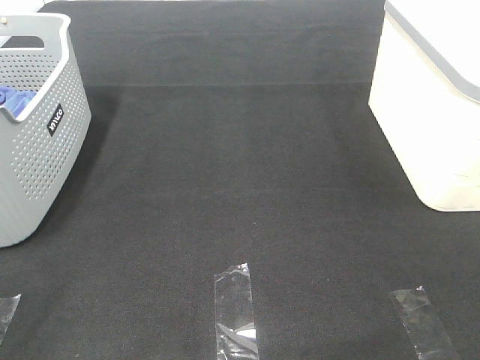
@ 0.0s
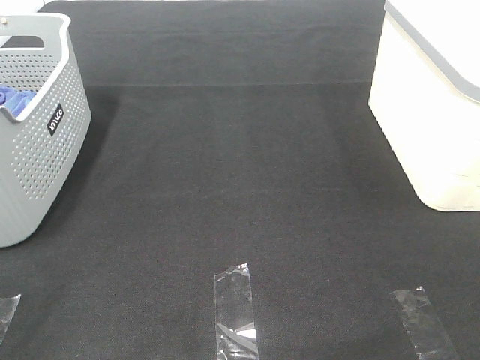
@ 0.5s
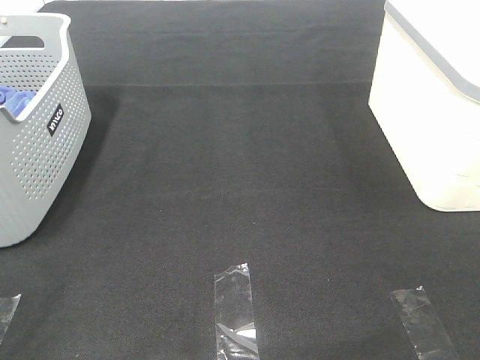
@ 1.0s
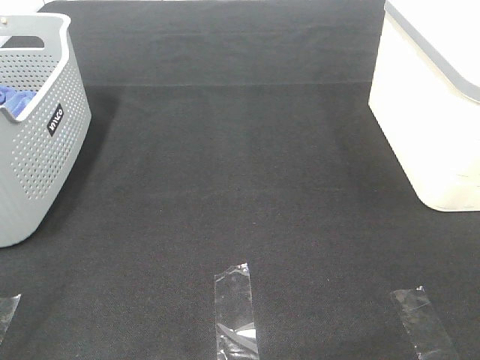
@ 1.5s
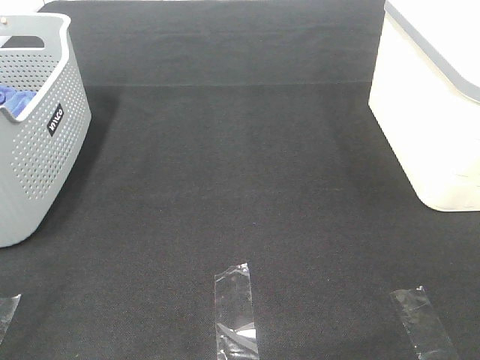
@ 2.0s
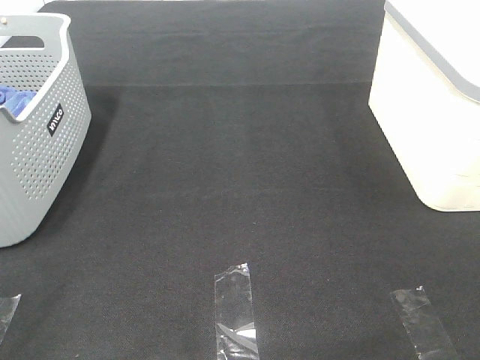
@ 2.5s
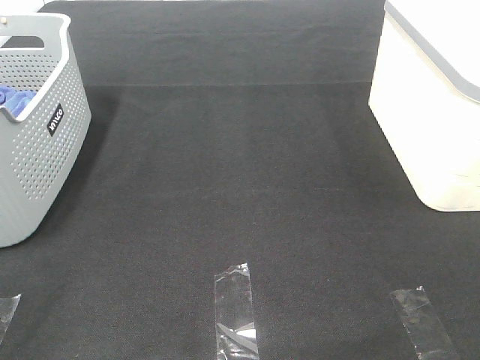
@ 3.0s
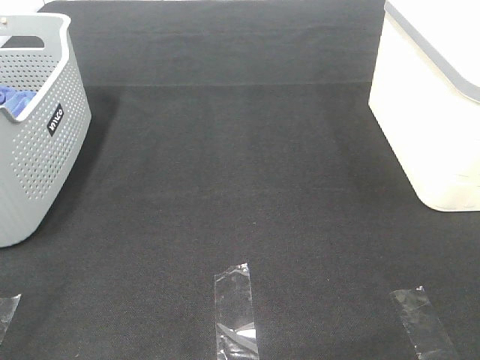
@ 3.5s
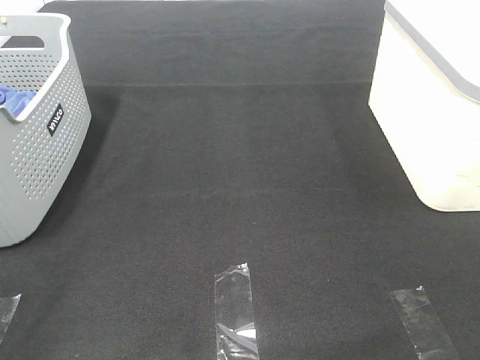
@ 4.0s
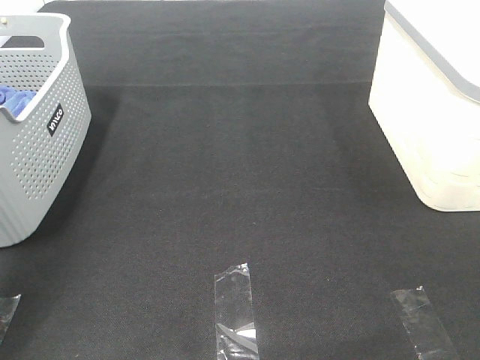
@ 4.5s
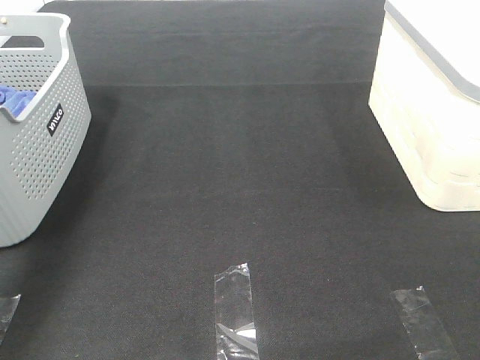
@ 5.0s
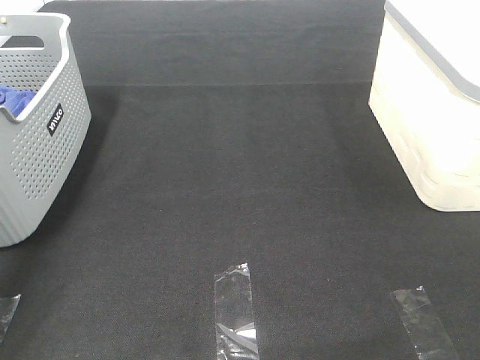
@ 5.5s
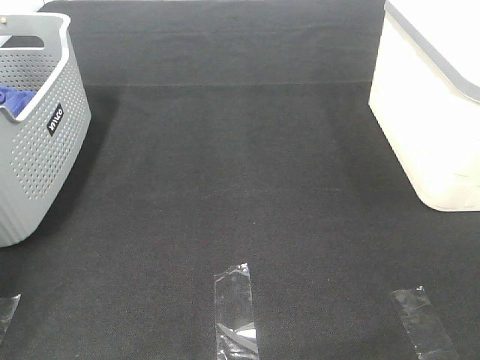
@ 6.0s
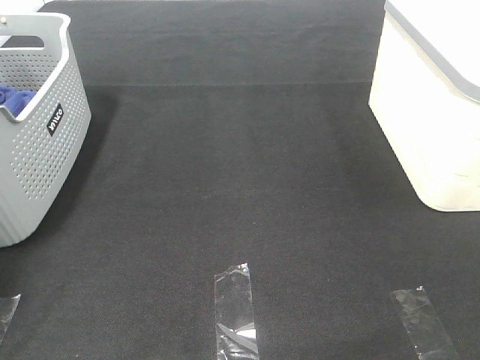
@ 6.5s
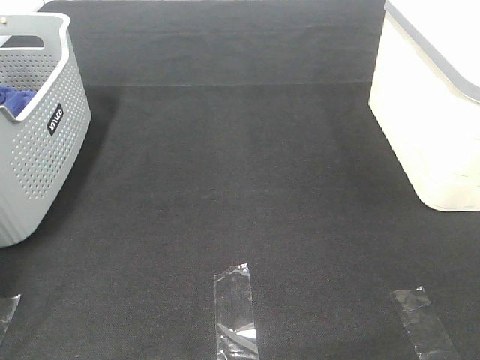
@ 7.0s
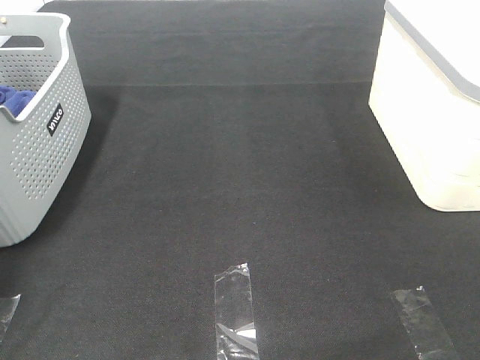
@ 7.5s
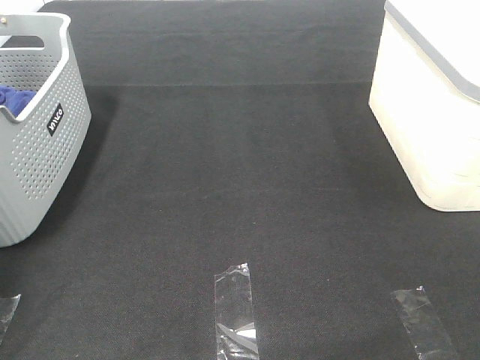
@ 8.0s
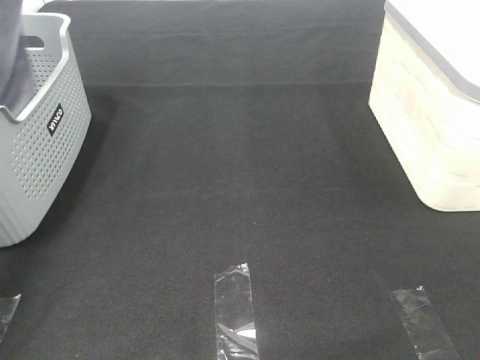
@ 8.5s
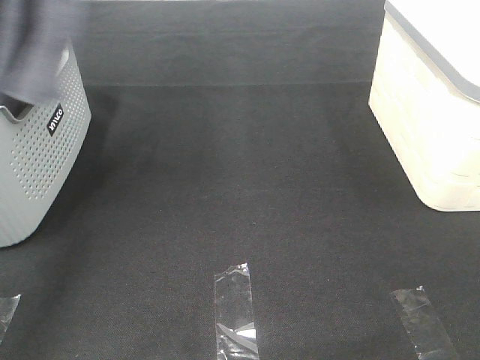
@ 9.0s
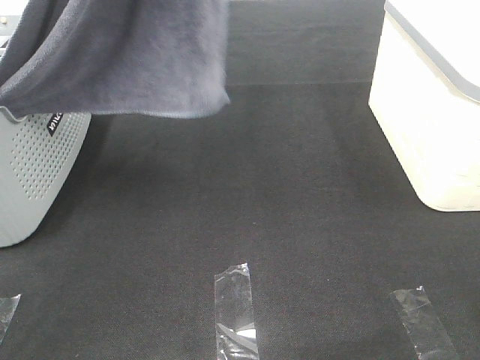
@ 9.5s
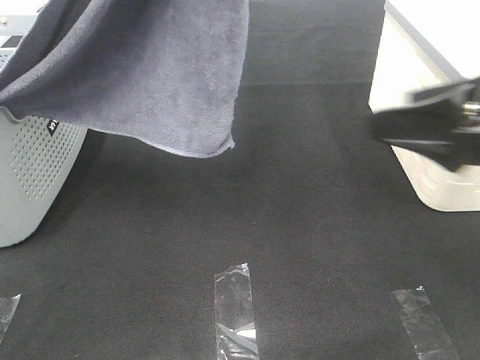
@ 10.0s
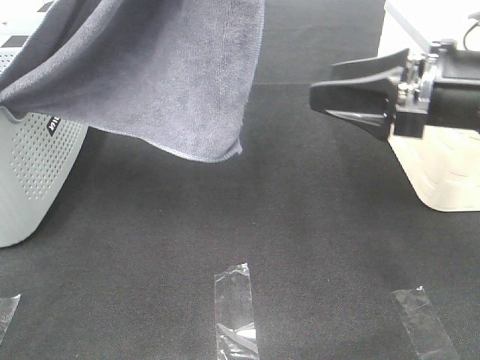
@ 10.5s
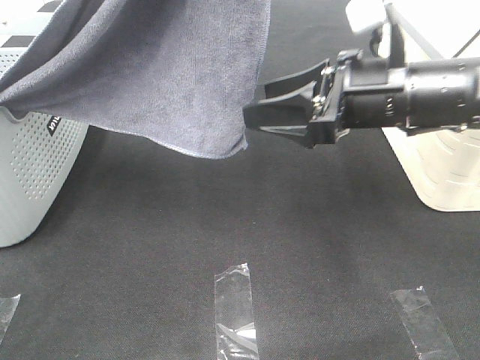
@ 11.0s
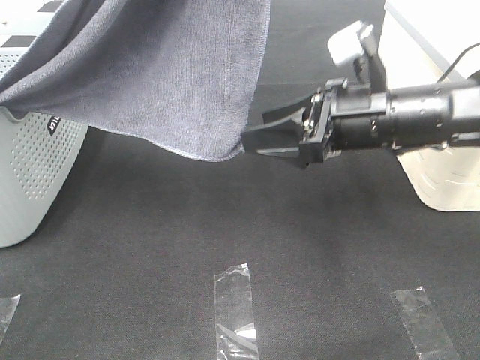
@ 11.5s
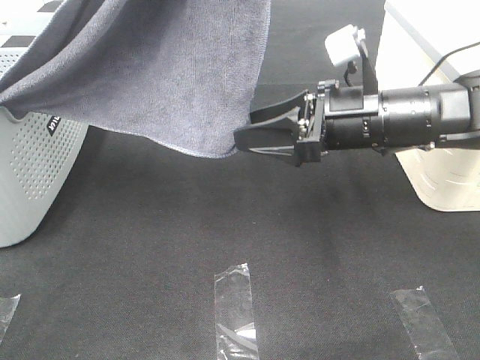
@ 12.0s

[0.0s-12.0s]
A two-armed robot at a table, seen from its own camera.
Task of the whole recording: Remove the towel and place it.
0.0s to 2.0s: Neither gripper changes place.
4.0s to 6.0s: The left gripper travels forward by approximately 40 cm.
8.0s to 10.0s: The right gripper heads forward, covering approximately 20 cm. Meanwhile the left gripper shifts some 40 cm to the right, upward and backward.
10.0s to 12.0s: The right gripper shifts roughly 15 cm forward, downward and to the left.

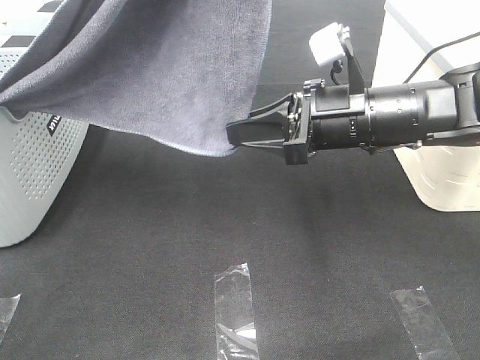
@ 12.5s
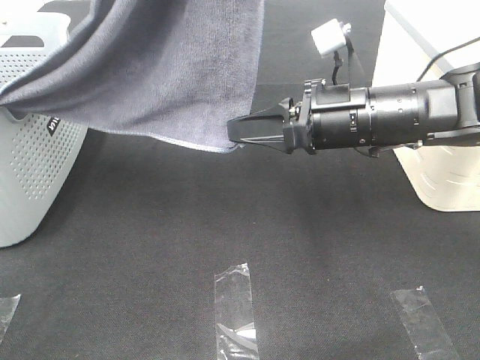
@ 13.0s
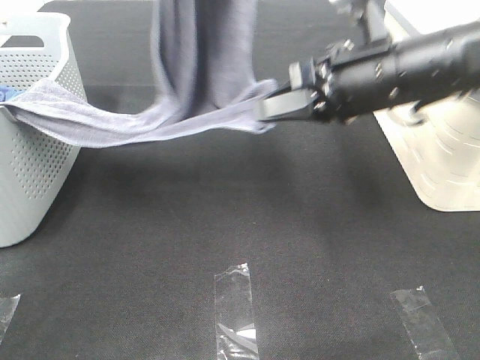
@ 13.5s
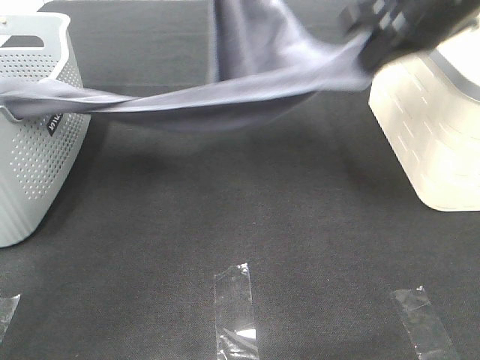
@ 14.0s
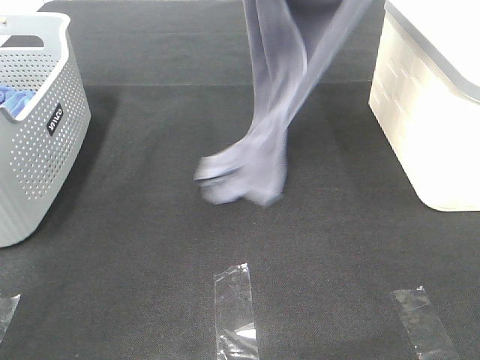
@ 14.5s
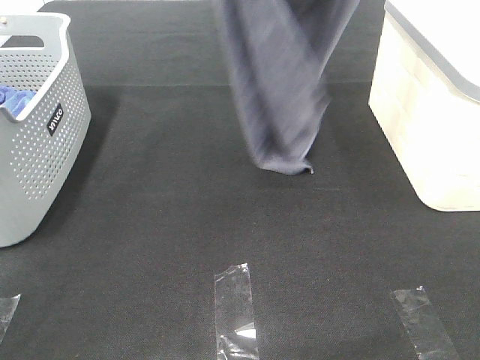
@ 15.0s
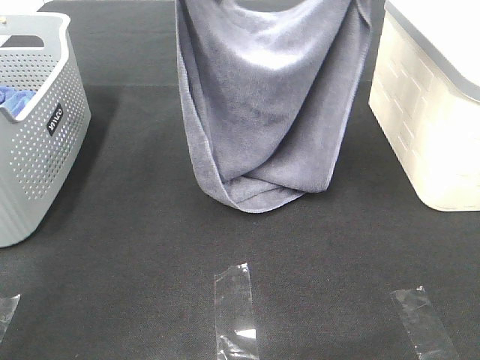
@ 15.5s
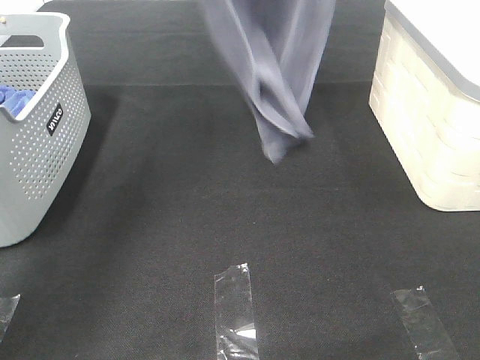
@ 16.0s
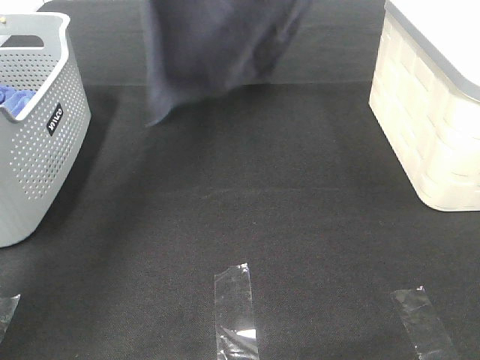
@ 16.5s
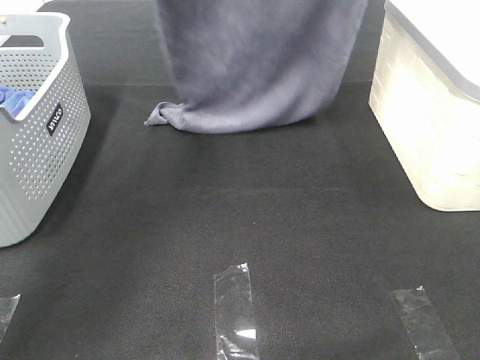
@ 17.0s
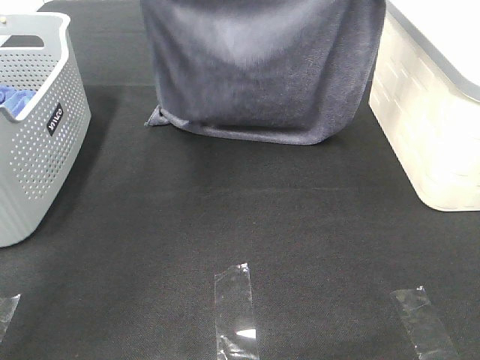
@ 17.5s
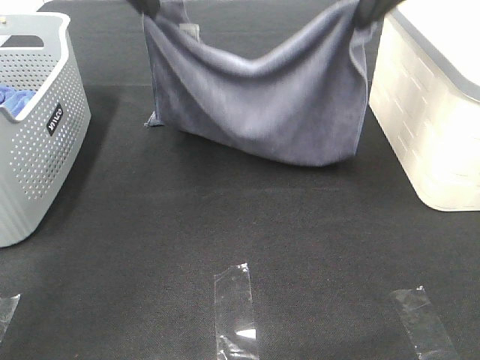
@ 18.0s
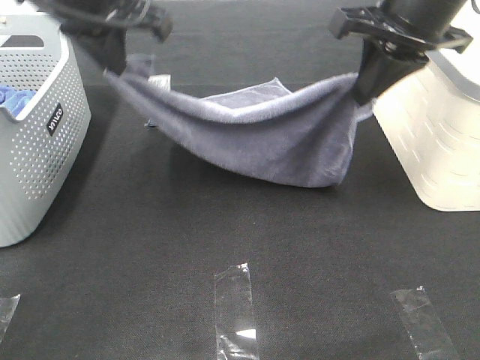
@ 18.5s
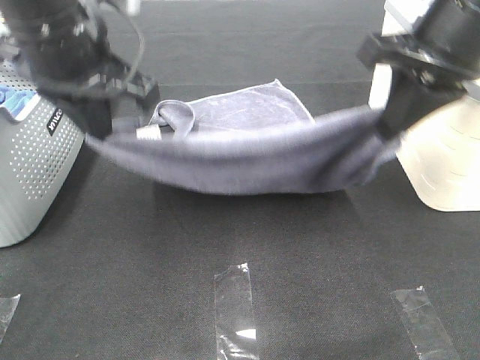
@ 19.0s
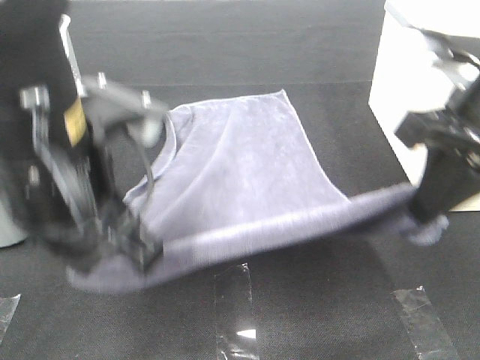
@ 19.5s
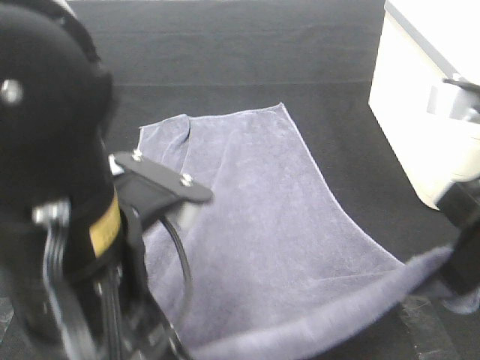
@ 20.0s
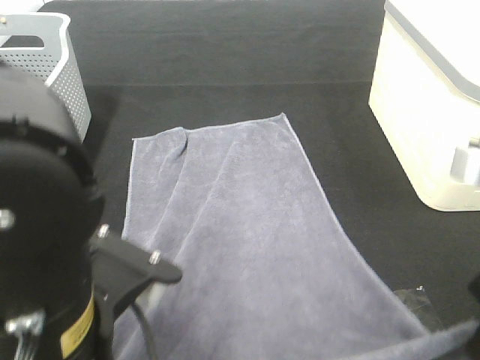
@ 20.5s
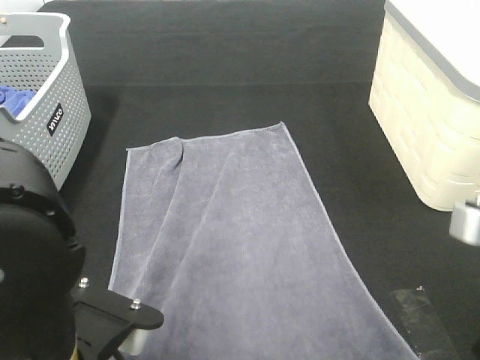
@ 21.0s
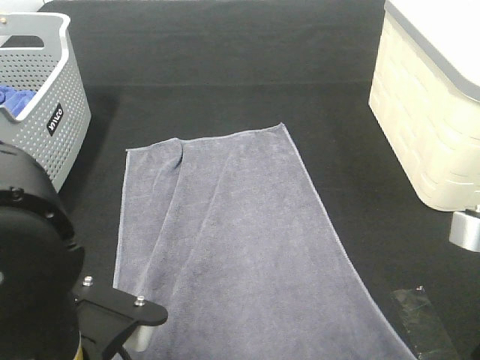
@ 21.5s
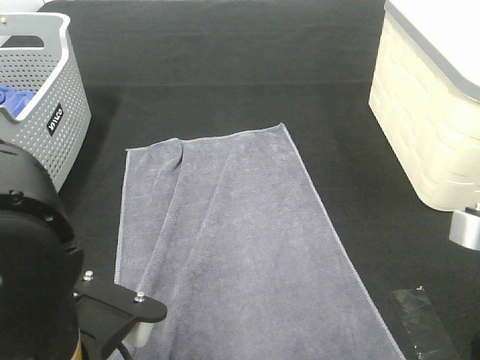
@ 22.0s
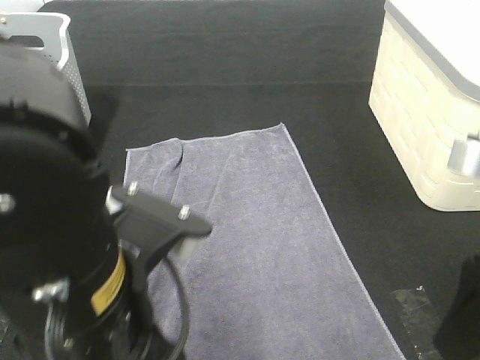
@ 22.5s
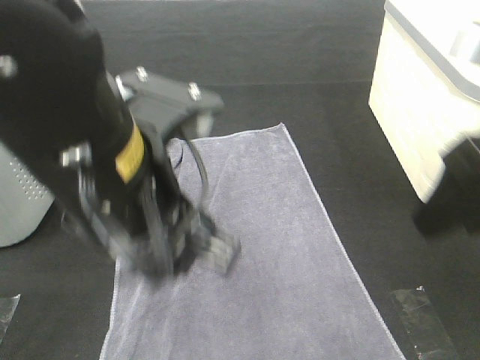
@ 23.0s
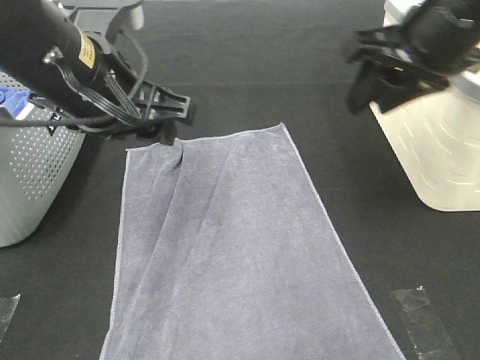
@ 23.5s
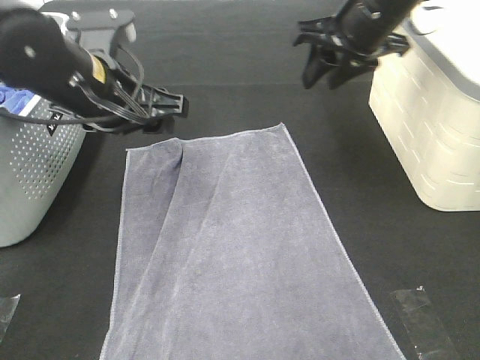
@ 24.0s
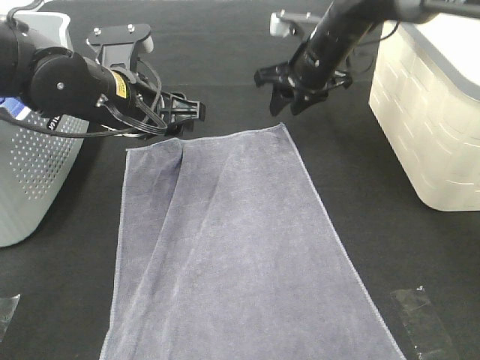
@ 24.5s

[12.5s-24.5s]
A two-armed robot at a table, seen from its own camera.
Task of the whole recording: Remove the towel and place it.
Step, 14.0s to 18.0s: Left hand: spread the grey towel flat on the table.
Step, 14.0s to 18.0s: Right hand: spread the grey towel flat on the table.
12.5s to 14.5s: The left gripper heads forward, covering roughly 10 cm, and travels downward and back again, some 15 cm each way. The right gripper is displaced upward by some 30 cm.
14.5s to 16.5s: The left gripper shifts approximately 10 cm forward and to the left, and travels downward and back again, roughly 10 cm each way. Meanwhile the right gripper travels forward by approximately 5 cm, and moves about 10 cm downward and comes back.
16.5s to 18.5s: The right gripper heads downward, covering some 20 cm. Meanwhile the left gripper goes some 20 cm downward and backward.
18.5s to 20.5s: The left gripper travels backward and downward by some 30 cm. The right gripper is displaced backward by roughly 20 cm.
20.5s to 22.5s: The left gripper opens. The right gripper opens its fingers.
22.5s to 24.5s: The left gripper goes about 25 cm forward. Meanwhile the right gripper goes about 35 cm forward.

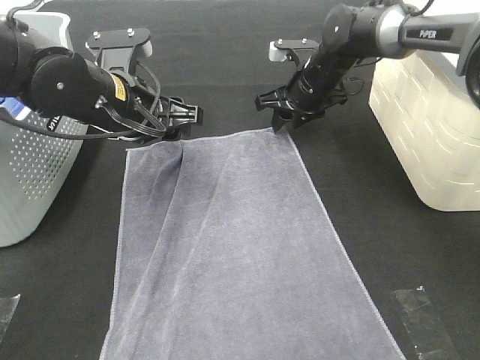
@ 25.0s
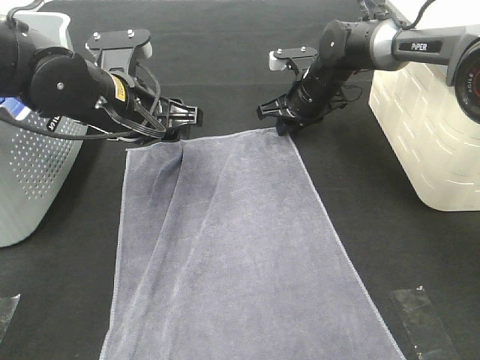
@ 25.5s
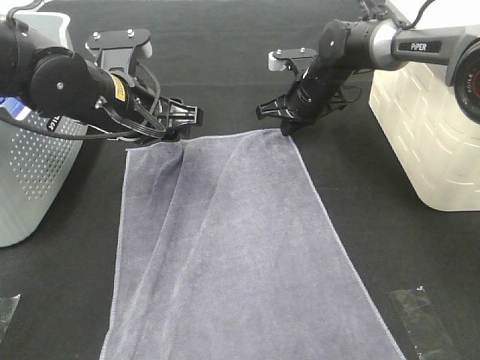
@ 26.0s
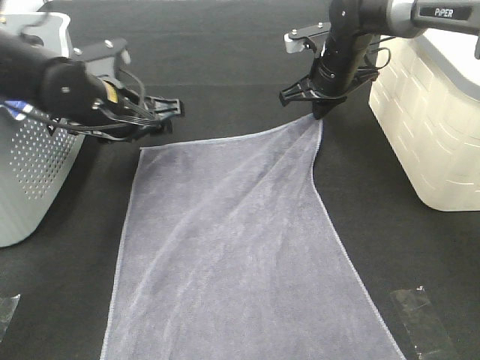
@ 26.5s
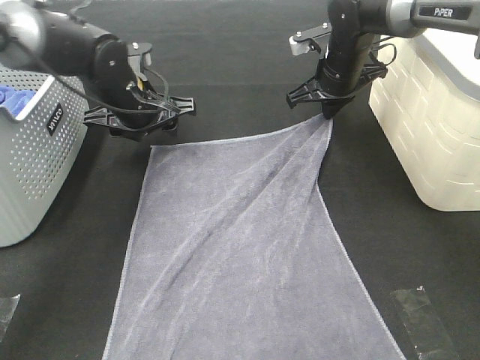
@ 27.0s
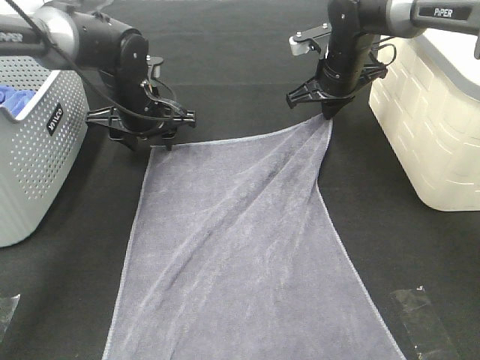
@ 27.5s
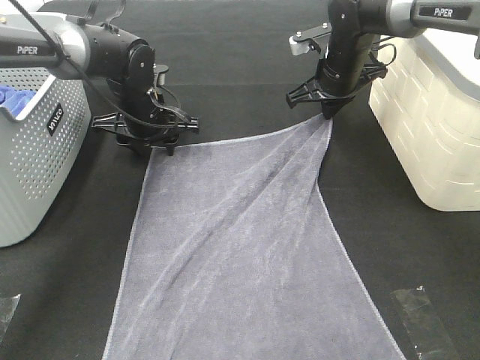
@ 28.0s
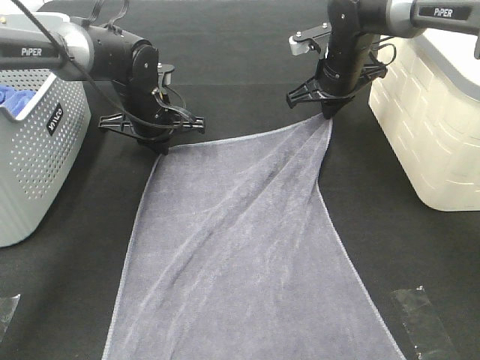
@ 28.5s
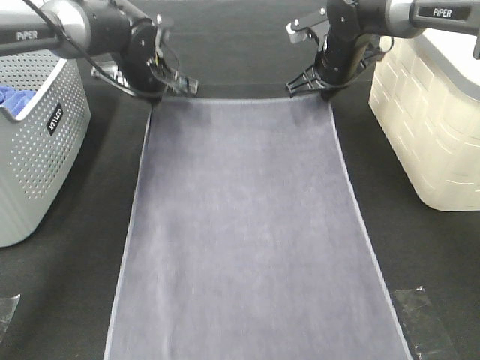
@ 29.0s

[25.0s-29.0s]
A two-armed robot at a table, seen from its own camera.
Task of the whole recording: Remove the towel and place it.
25.0s to 27.0s: The left gripper travels forward by roughly 10 cm; the right gripper closes its fingers.
27.0s to 29.0s: The left gripper travels forward by approximately 5 cm, and closes up.
